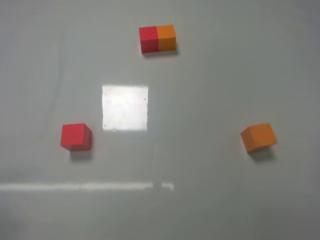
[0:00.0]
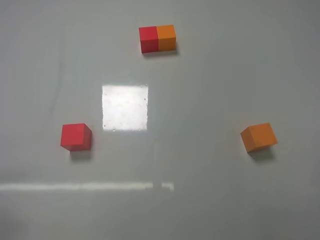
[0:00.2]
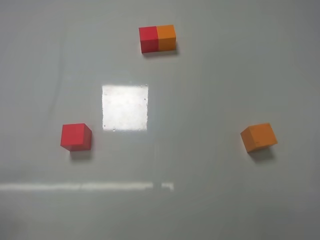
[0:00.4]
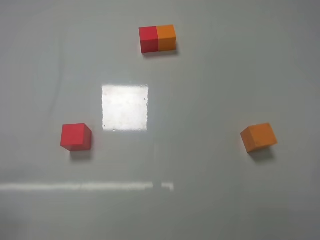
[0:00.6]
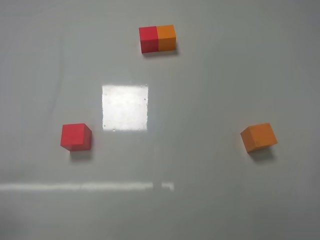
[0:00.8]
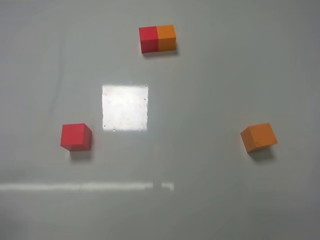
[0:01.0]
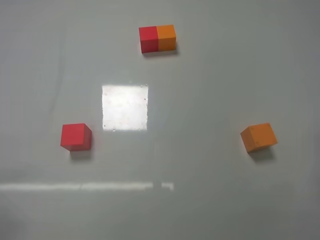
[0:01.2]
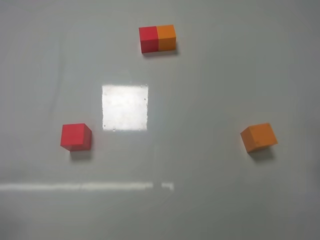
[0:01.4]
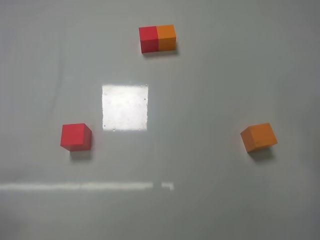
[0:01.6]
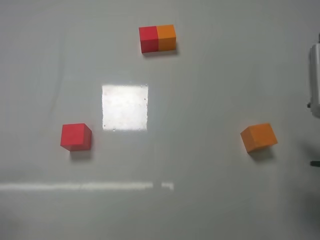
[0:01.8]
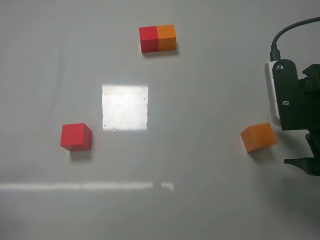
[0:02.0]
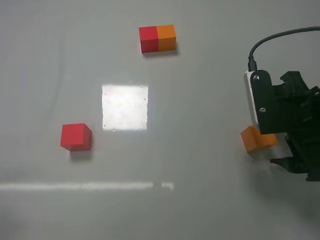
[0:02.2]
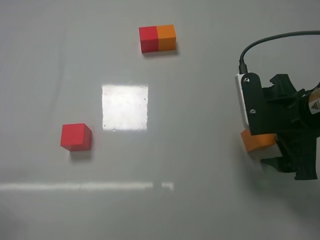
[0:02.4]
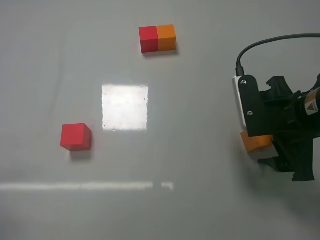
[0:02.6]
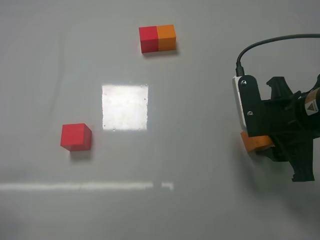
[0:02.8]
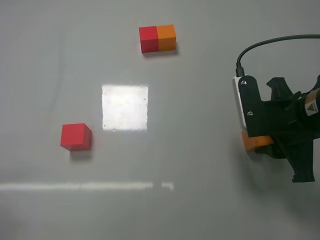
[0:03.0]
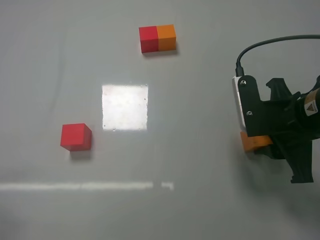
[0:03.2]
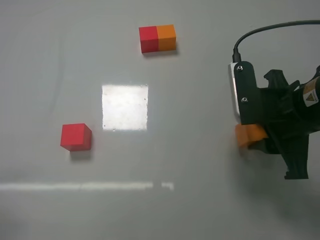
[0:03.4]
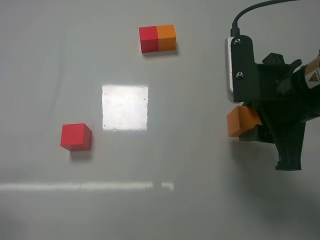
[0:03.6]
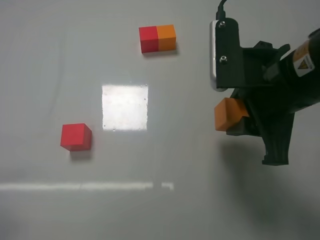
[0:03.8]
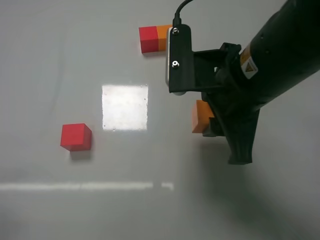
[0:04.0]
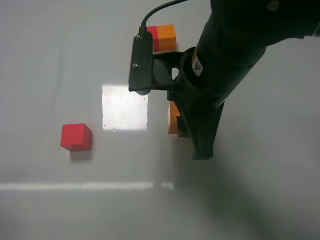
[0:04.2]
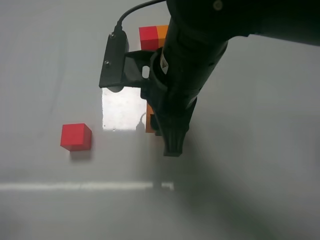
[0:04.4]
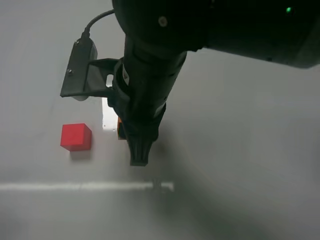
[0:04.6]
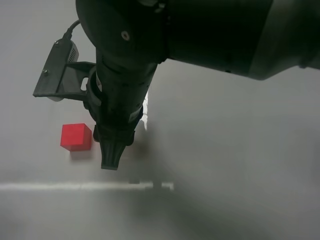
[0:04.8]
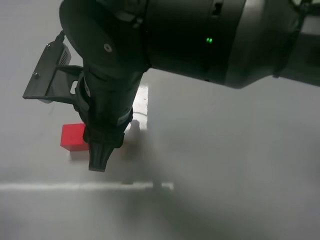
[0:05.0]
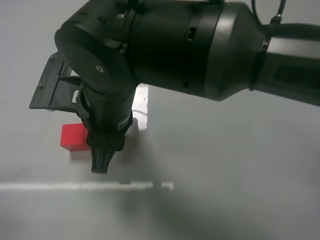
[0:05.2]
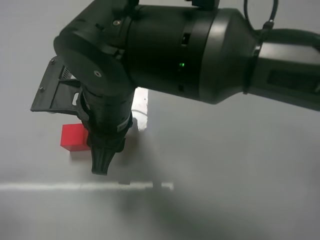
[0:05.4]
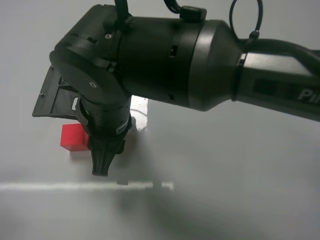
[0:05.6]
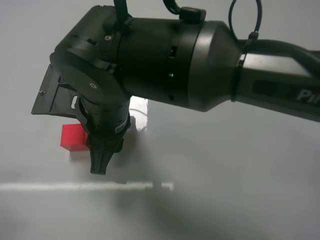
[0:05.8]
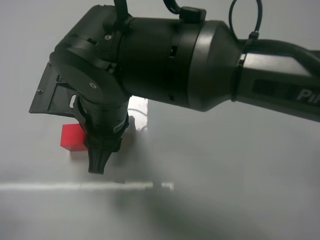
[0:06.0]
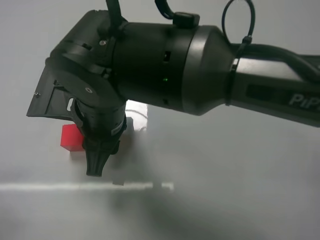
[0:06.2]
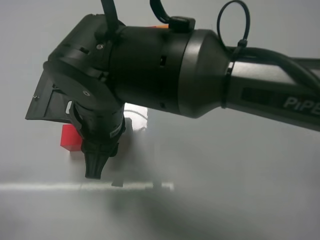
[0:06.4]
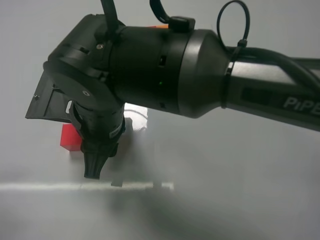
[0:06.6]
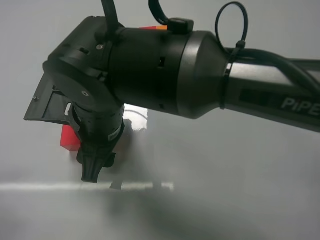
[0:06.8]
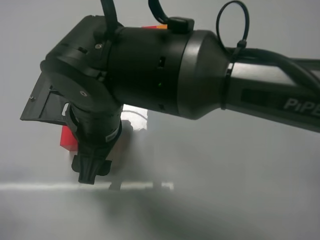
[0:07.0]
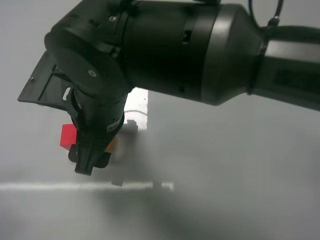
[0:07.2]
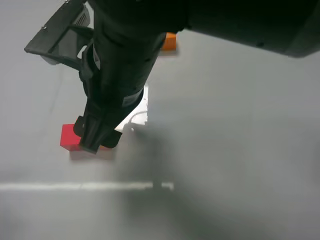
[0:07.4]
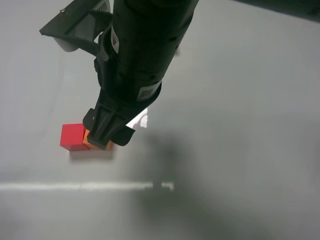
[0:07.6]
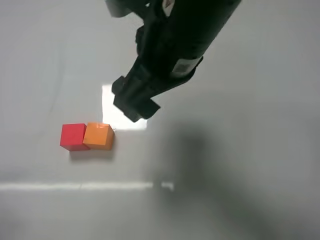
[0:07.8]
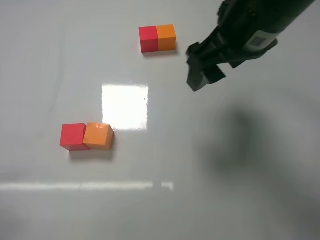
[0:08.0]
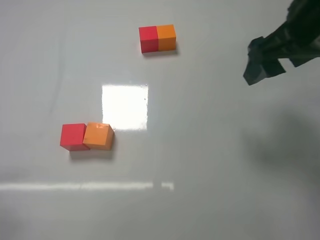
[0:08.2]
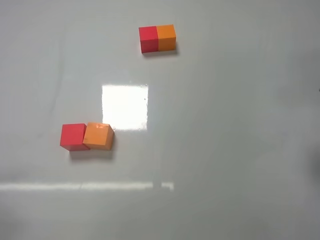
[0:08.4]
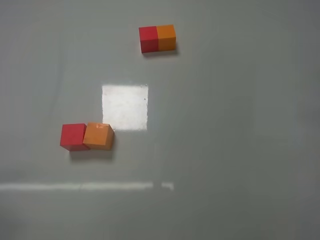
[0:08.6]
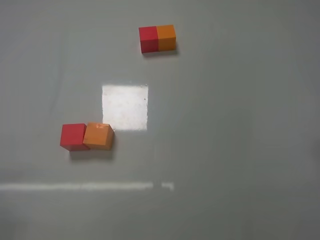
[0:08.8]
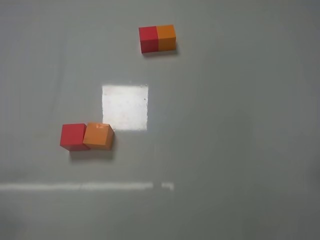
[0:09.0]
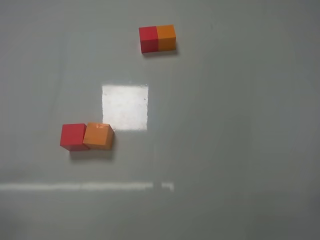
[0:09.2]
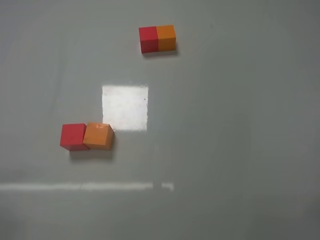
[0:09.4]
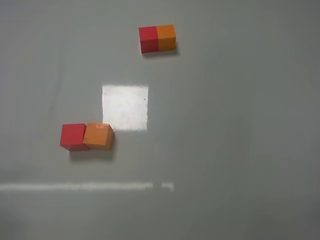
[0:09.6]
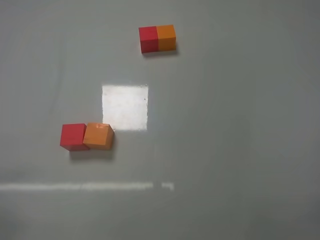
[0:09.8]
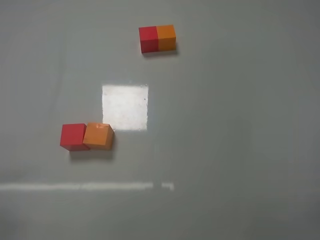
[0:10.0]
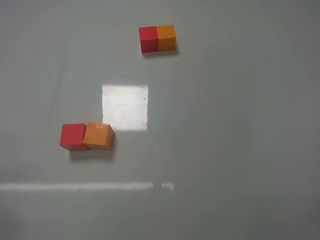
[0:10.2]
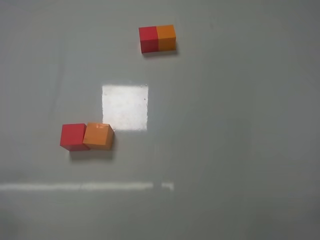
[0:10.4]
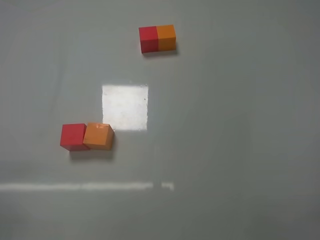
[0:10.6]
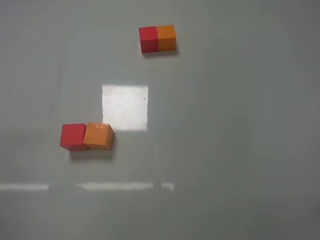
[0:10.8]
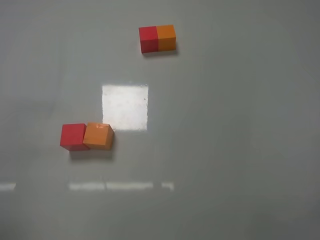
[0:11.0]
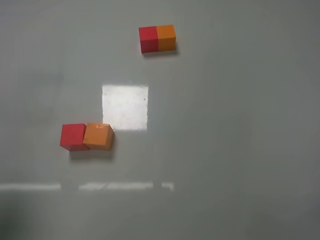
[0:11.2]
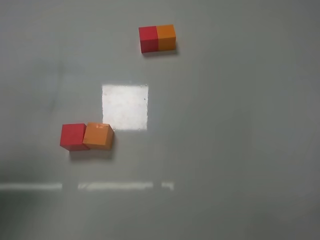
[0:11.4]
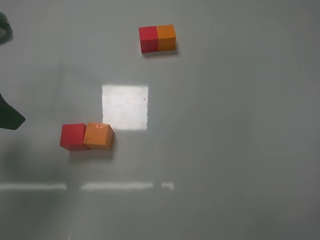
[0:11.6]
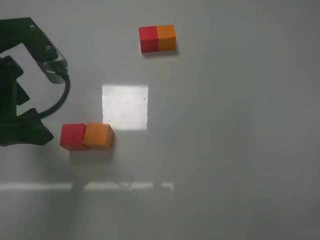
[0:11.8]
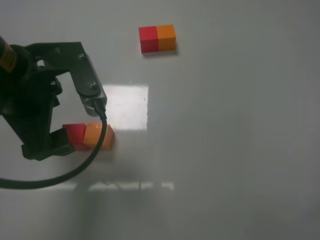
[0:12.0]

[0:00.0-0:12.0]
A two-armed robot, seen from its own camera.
Task of the whole recording: According to the building block template in front, assemble the scattered blocks together.
Step, 0:00.0 to 0:03.0: Grasp the orange block with right gripper.
Step, 0:03.2 to 0:06.8: Put the orange cube on the right of the red cube with the right gripper.
0:01.6 to 0:03.0: The right gripper travels forward, to the left and downward by some 15 cm, and closes.
0:03.0 to 0:04.4: The right gripper shifts approximately 20 cm to the left.
0:04.4 to 0:06.0: The right gripper is displaced to the left by some 10 cm.
0:06.0 to 0:07.6: The right gripper shifts approximately 10 cm upward and to the right, and opens.
0:07.6 to 0:09.0: The right gripper goes roughly 35 cm to the right and backward.
0:10.4 to 0:12.0: The left gripper travels forward, to the right and upward by some 30 cm.

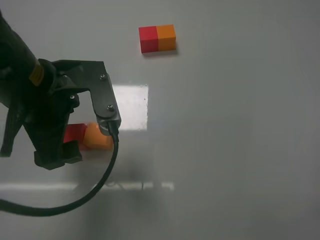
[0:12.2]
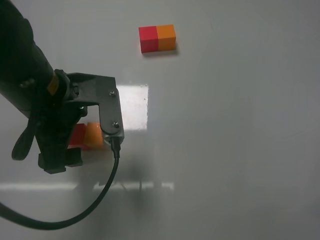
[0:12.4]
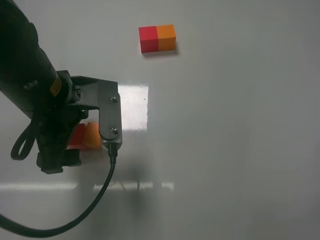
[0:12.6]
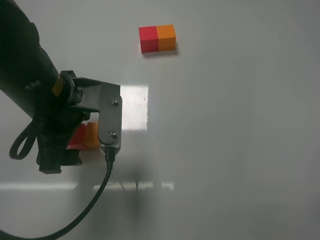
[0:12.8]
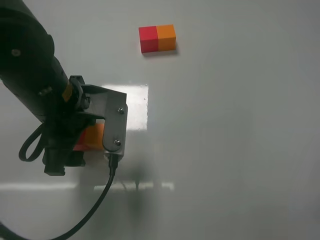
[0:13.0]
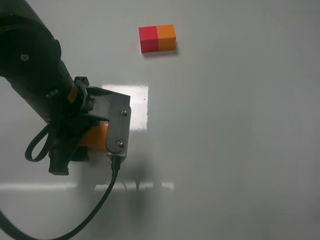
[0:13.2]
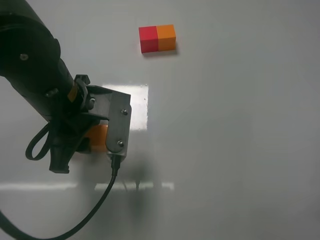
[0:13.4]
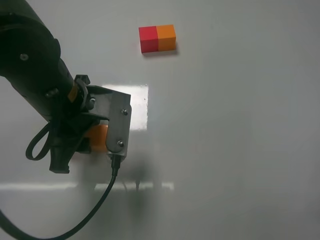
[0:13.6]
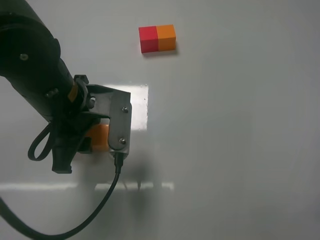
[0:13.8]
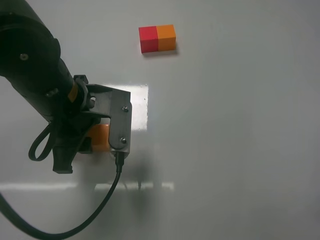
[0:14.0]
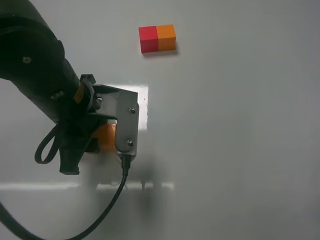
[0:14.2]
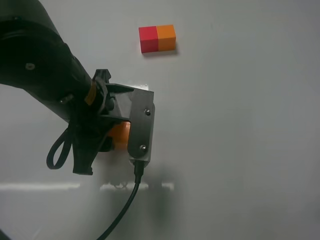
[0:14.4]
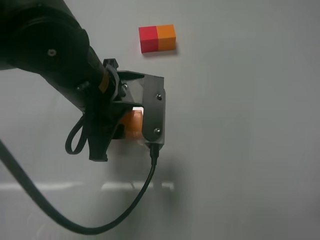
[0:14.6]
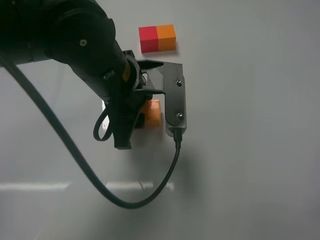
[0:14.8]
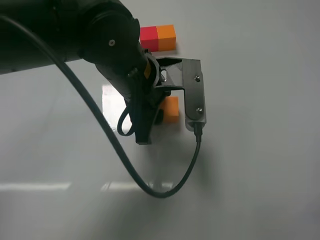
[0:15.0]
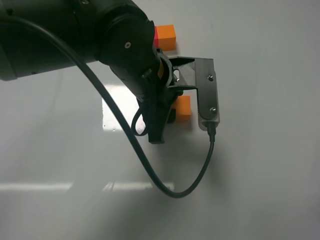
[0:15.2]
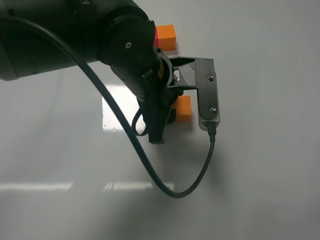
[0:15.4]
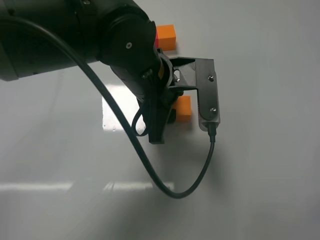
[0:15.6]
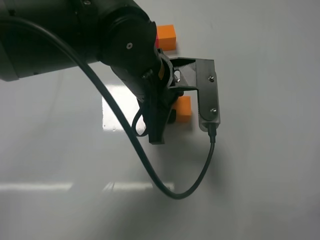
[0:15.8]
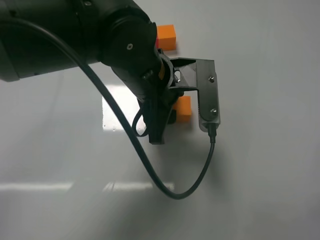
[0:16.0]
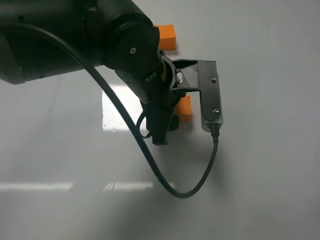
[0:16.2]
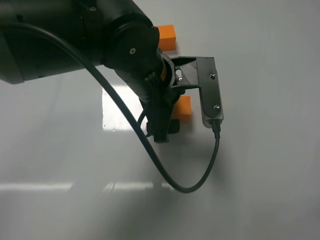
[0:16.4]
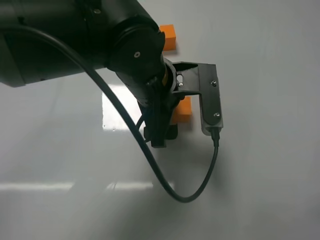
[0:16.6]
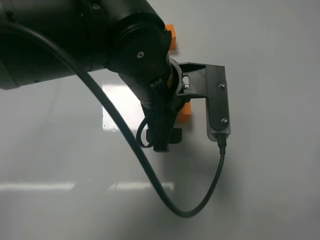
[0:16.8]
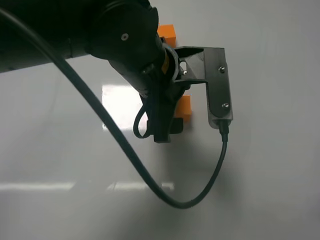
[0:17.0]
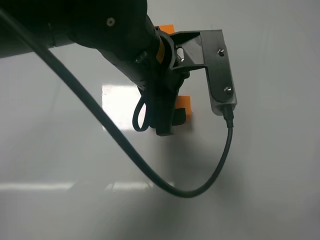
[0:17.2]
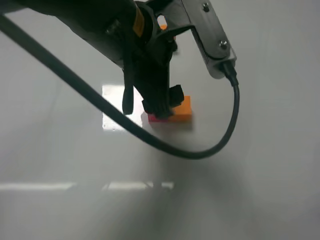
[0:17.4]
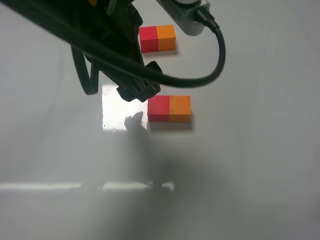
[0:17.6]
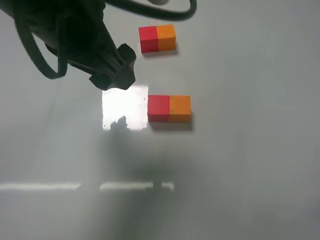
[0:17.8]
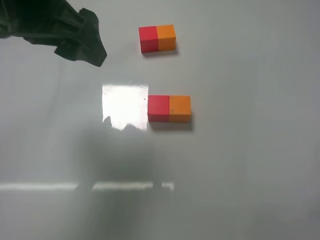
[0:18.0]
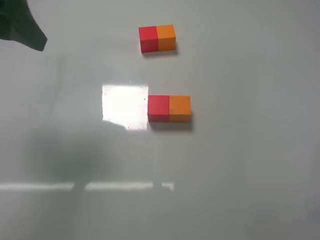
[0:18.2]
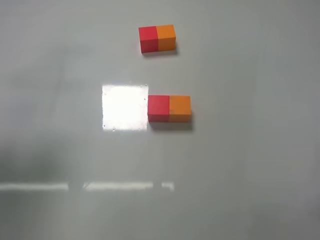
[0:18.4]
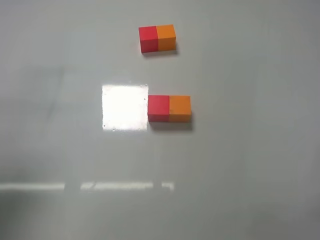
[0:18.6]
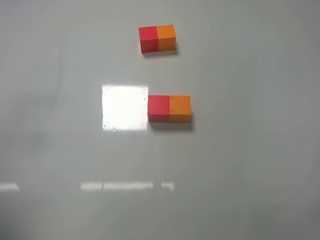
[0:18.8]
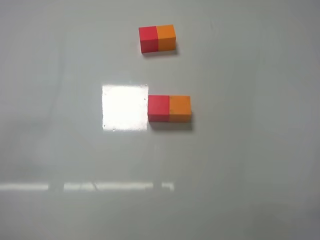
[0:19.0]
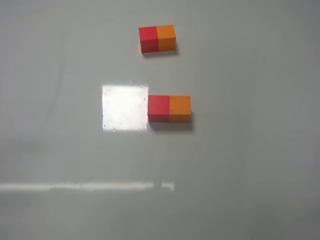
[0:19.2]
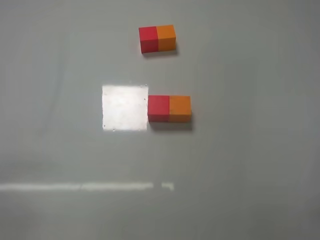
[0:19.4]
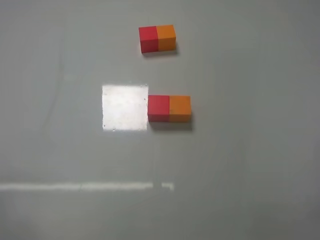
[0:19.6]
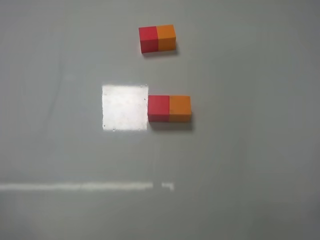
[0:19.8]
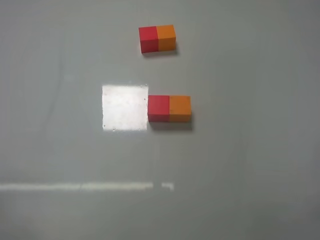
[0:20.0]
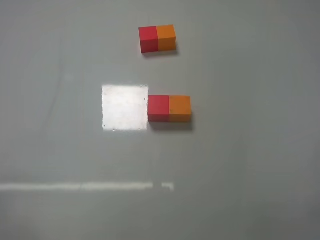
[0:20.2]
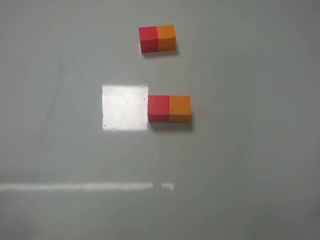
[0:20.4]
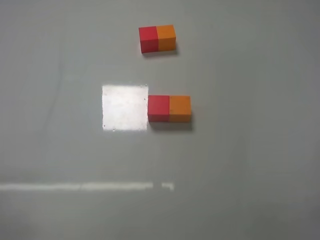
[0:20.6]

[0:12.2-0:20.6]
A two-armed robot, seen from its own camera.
Task of the whole recording: According to the building block template in front, assemble the scattered blocks together.
Step, 0:12.2 to 0:16.6: Put the red cube and orange cube in the center of the table with the left gripper.
0:12.2 to 0:13.6: The left gripper closes.
0:13.6 to 0:15.0: The left gripper travels to the right by about 10 cm.
0:15.0 to 0:16.4: The left gripper opens.
0:16.4 to 0:17.8: The left gripper heads upward, to the left and backward, covering some 15 cm.
0:17.8 to 0:19.2: The left gripper shifts some 30 cm to the left, backward and downward.
